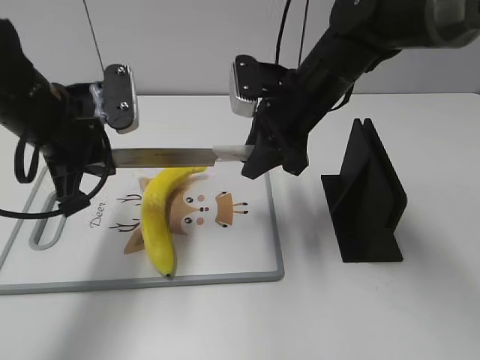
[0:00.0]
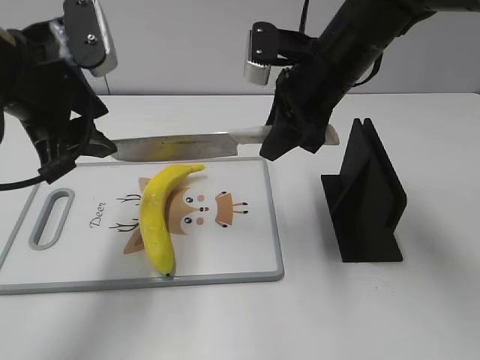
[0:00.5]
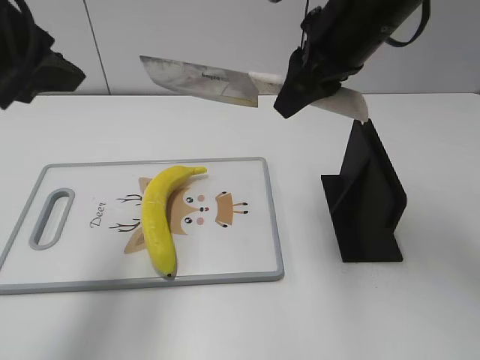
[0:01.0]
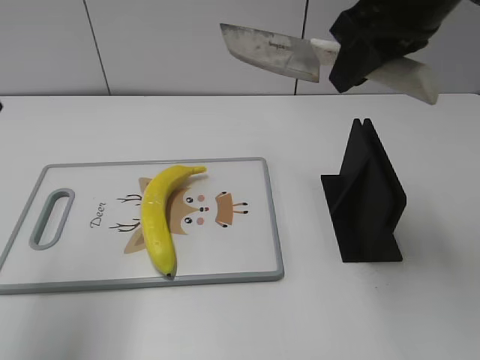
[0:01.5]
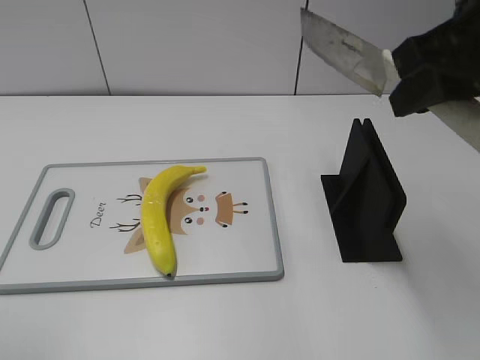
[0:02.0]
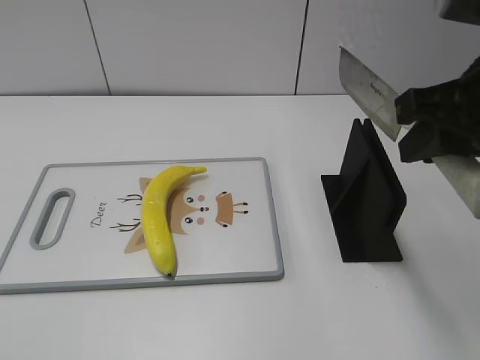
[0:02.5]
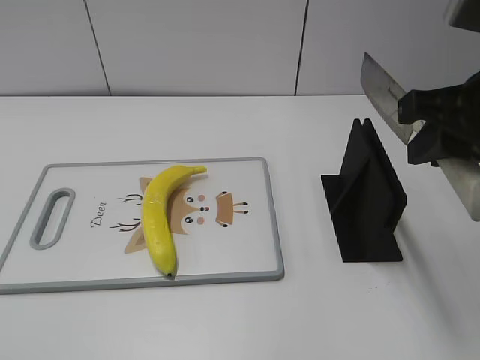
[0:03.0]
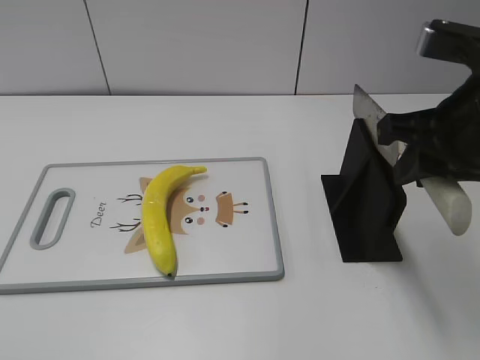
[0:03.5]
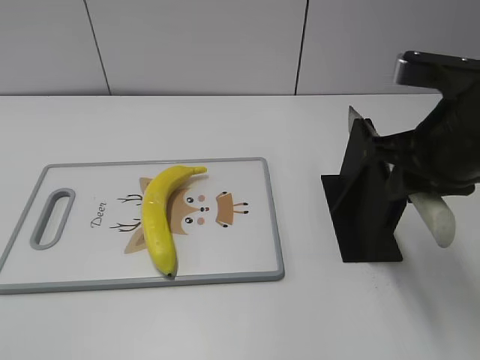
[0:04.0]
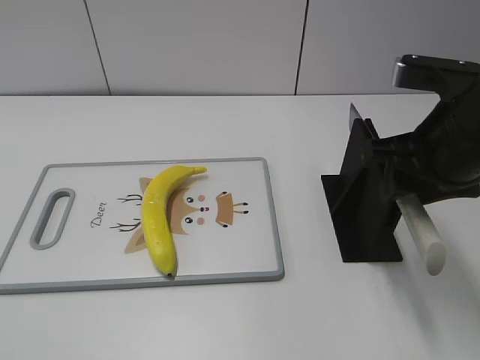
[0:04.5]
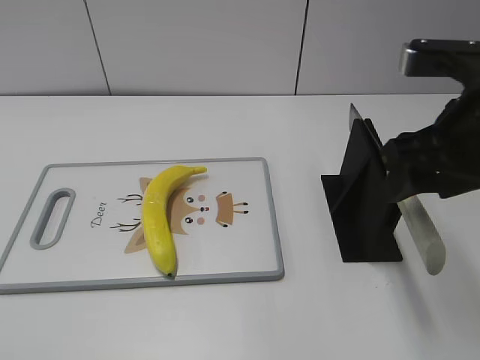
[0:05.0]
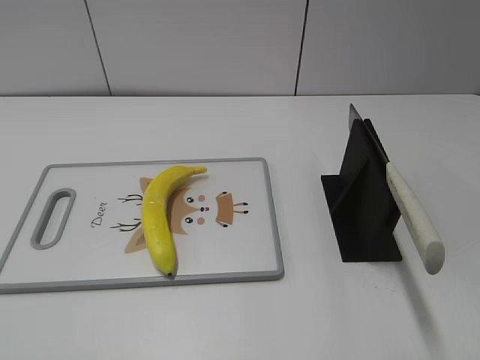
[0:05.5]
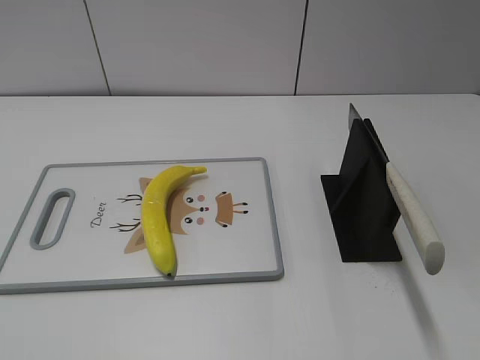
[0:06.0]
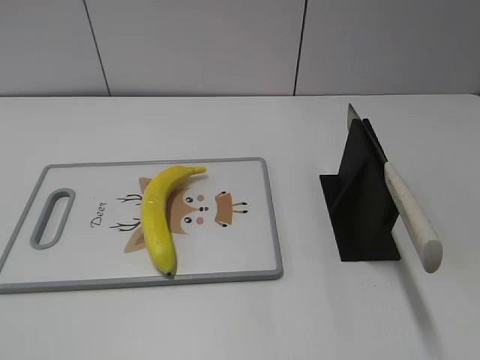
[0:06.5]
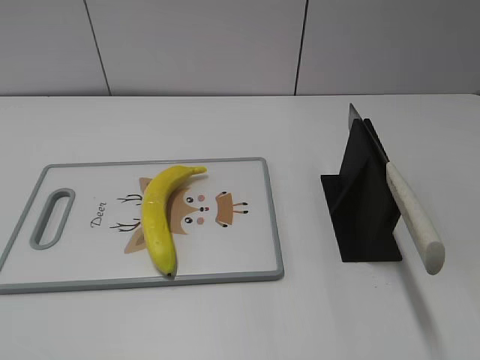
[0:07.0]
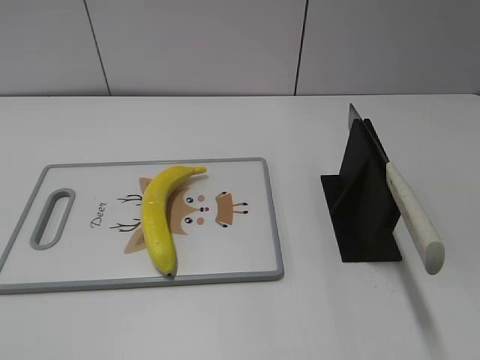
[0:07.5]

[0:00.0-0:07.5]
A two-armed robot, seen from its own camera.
Task of the whole recording: cut plastic banana.
Step, 0:00.0 to 0:02.5: Cut the banana with your right hand.
Step, 0:03.5 to 0:07.5: Place the knife on the storage rack with your right hand.
0:00.0 to 0:02.0: The right gripper heads upward, backward and to the right, covering approximately 25 cm, while the left gripper heads backward, upward and to the left, covering approximately 25 cm, and opens up.
0:02.0 to 0:04.0: The right gripper is displaced downward by roughly 10 cm.
0:04.0 to 0:05.5: The right gripper travels backward and to the right by some 15 cm, and opens.
